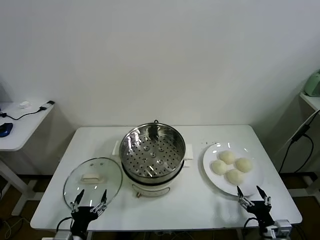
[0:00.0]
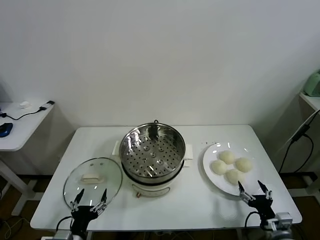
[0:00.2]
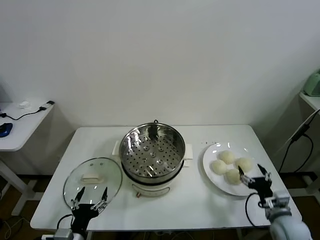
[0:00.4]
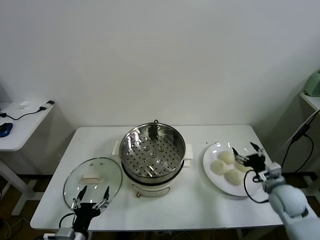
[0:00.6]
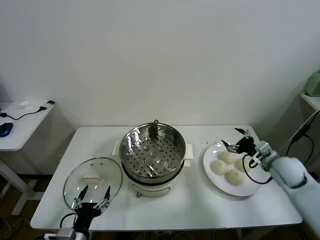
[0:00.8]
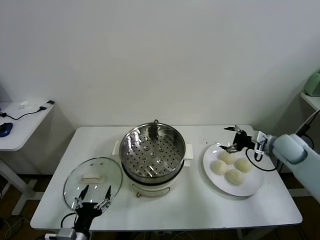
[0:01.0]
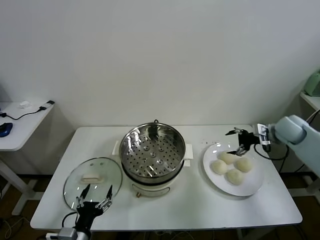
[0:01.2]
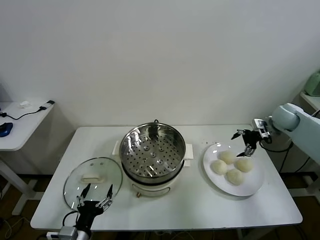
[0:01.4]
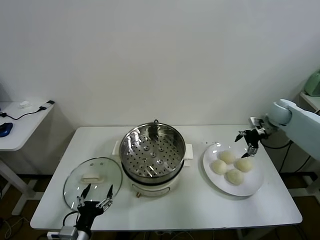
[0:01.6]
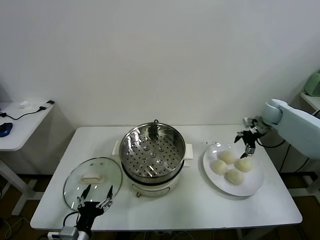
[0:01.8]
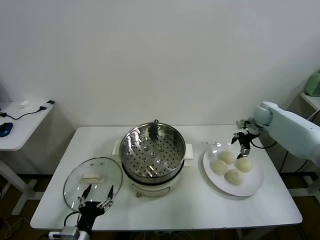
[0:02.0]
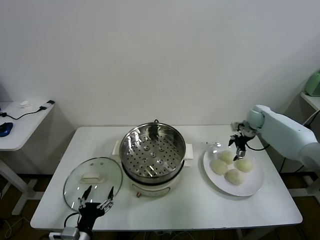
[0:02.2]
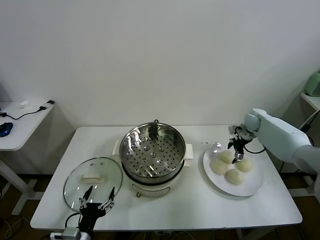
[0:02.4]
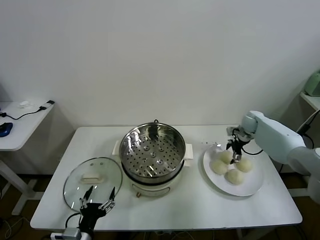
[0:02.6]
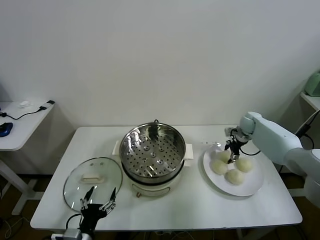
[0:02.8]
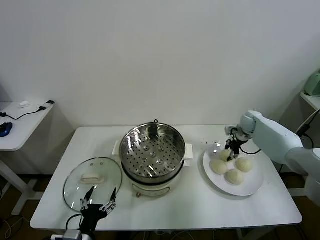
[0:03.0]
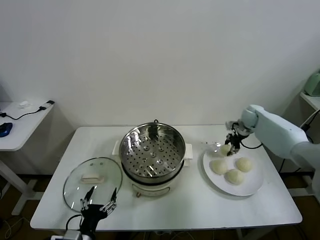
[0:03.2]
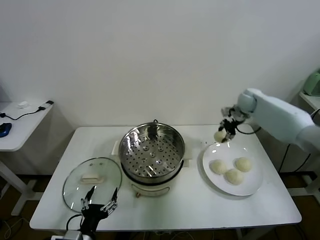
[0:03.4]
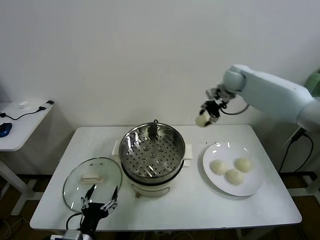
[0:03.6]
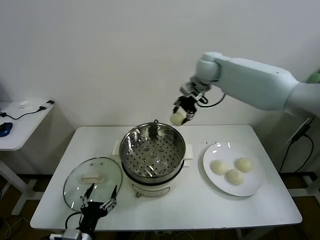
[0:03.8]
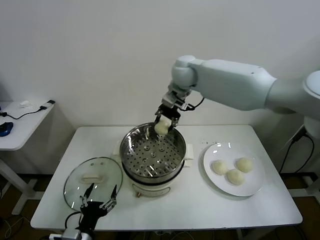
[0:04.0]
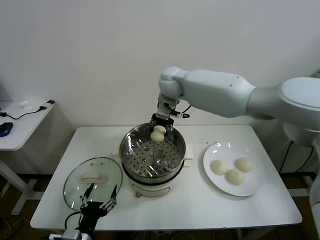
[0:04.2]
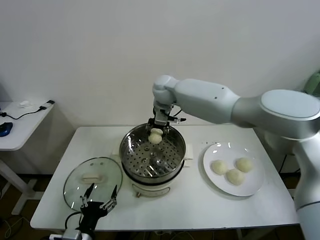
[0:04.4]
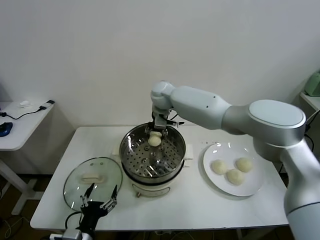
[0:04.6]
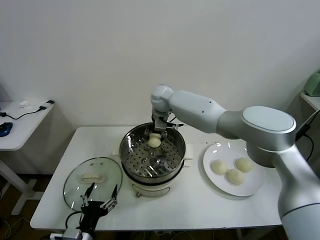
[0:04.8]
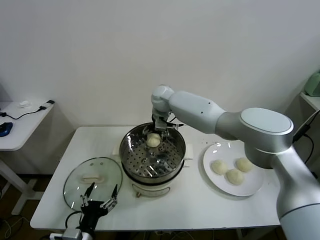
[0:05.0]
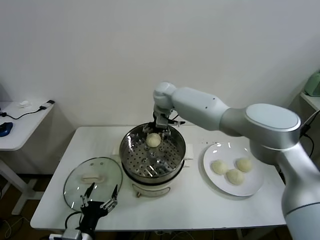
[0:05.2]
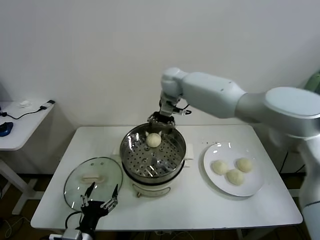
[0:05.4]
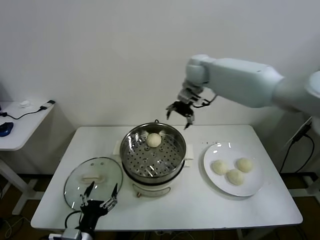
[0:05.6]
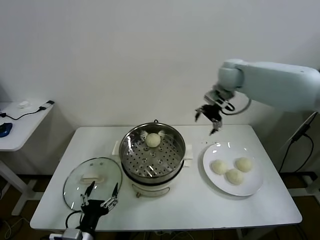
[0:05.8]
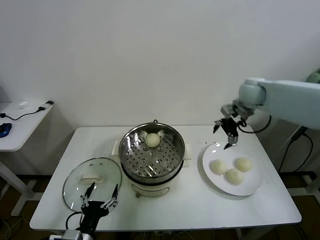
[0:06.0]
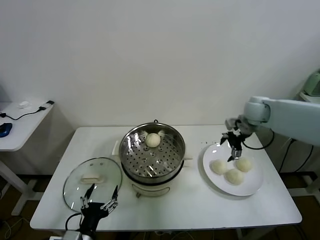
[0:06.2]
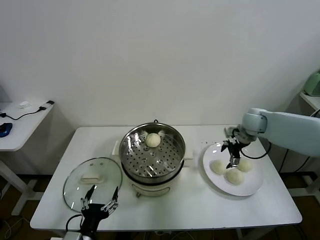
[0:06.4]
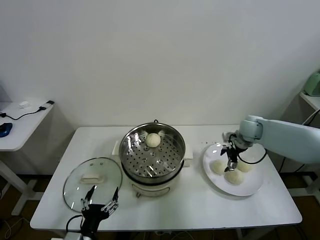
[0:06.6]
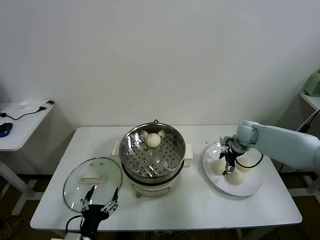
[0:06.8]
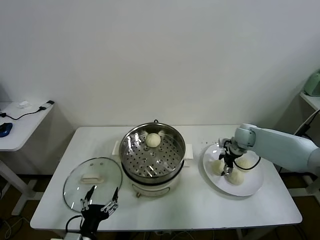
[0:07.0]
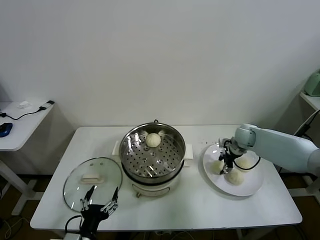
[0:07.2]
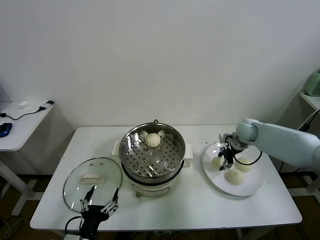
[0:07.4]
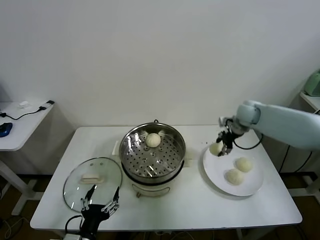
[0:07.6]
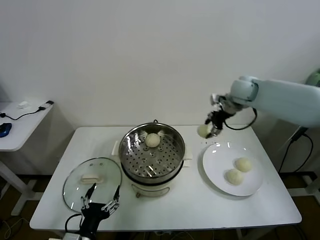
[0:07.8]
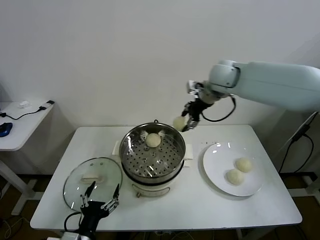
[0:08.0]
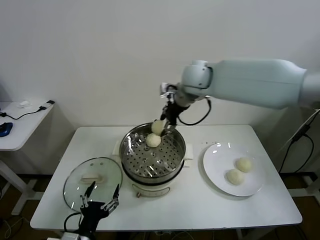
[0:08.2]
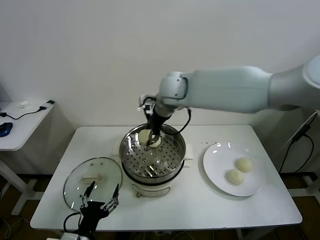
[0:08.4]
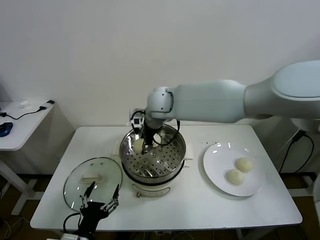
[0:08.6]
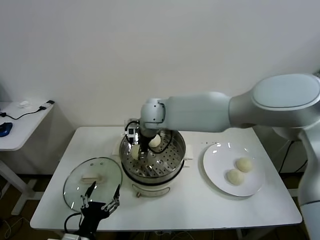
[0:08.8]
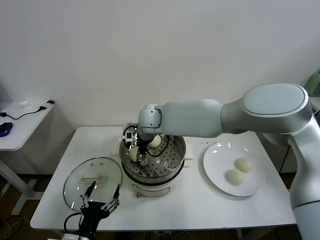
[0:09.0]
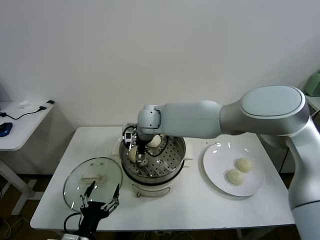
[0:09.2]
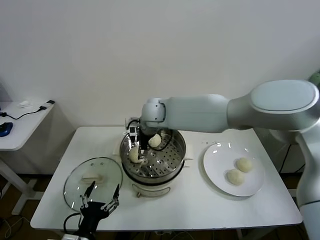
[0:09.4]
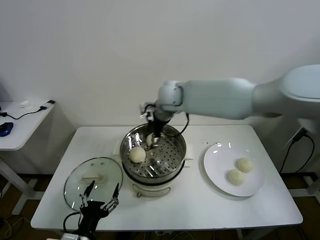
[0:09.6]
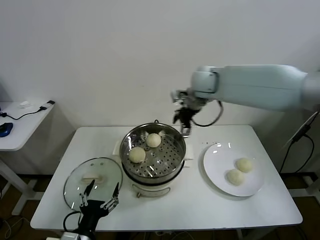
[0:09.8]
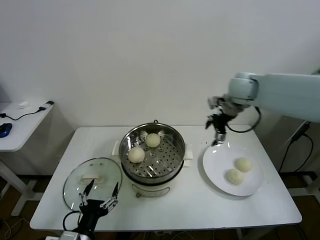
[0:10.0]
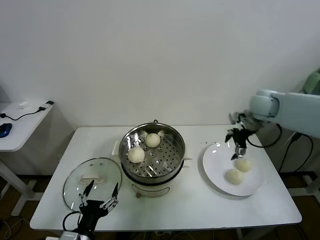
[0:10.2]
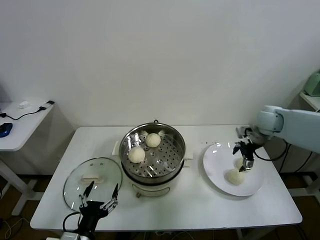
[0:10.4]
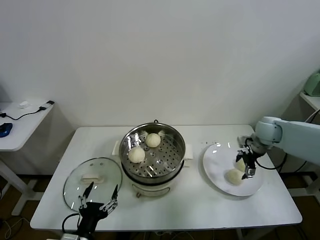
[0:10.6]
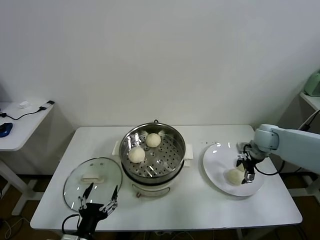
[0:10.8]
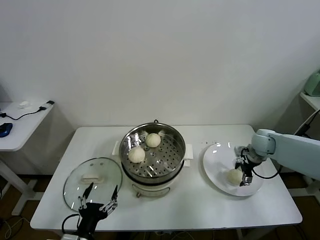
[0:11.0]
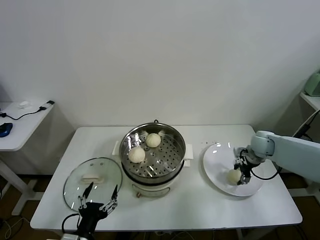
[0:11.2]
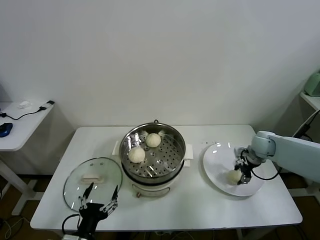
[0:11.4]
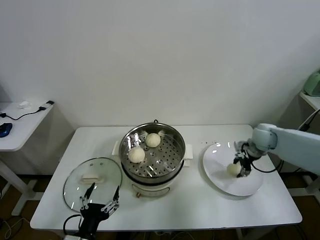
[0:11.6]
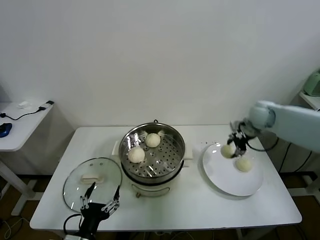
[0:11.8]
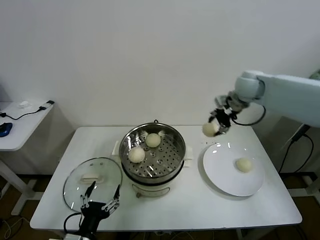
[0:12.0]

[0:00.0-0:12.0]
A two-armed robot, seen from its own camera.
Task of the whole recording: take steamed baozi put them in steamer.
Step, 0:00.0 to 0:03.0: Grasp the baozi in the plate with right gripper.
Step, 0:03.2 to 0:05.0: Place the baozi on the steamer with right gripper.
Step, 0:05.2 to 0:07.0: Grasp the baozi in the plate with right gripper.
Step, 0:07.2 to 0:09.2: Place the baozi on the steamer with right gripper.
Step, 0:09.4 to 0:11.2: Grasp the baozi in the plate with right gripper.
0:01.6 to 0:03.0: The right gripper goes approximately 10 cm downward and to the left, and closes up.
0:03.0 to 0:04.4: The right gripper travels to the left and upward by about 40 cm.
0:04.4 to 0:06.0: The right gripper is displaced to the right by roughly 30 cm, and opens.
0:06.0 to 0:07.6: The right gripper goes downward and returns, some 15 cm each way, and closes its fingers.
0:07.6 to 0:09.0: The right gripper heads to the left, covering about 35 cm, and opens up.
0:09.0 to 0:10.4: The right gripper heads to the right, covering some 40 cm.
0:10.4 to 0:12.0: The right gripper heads upward and to the left, covering about 20 cm, and closes up.

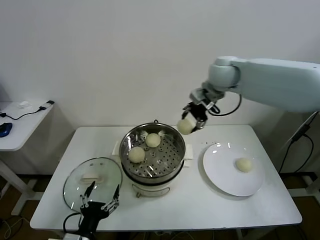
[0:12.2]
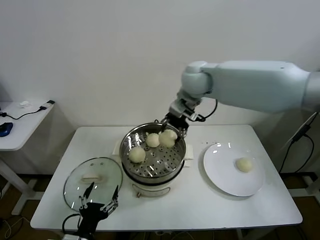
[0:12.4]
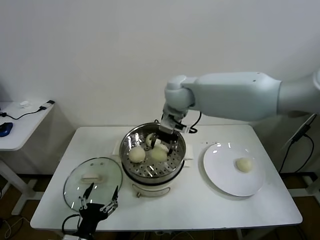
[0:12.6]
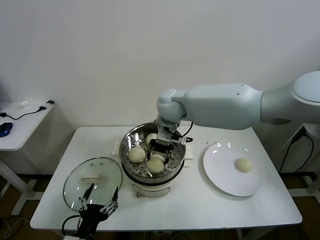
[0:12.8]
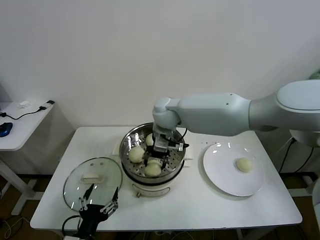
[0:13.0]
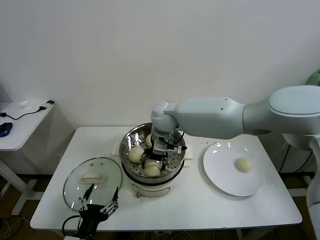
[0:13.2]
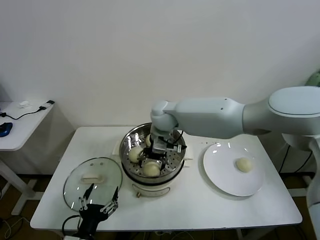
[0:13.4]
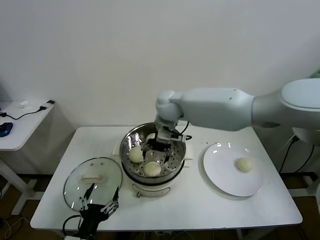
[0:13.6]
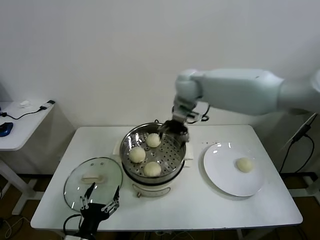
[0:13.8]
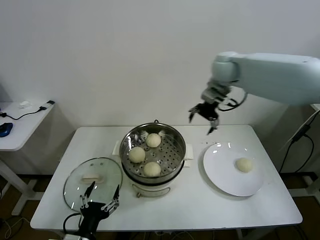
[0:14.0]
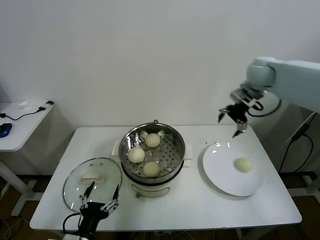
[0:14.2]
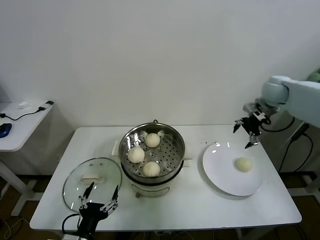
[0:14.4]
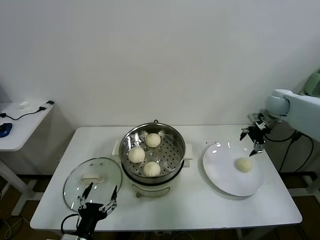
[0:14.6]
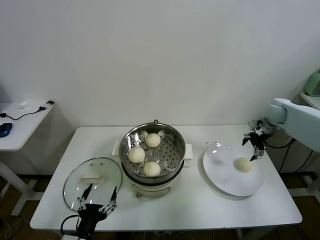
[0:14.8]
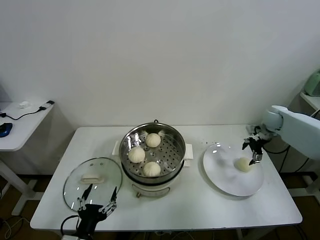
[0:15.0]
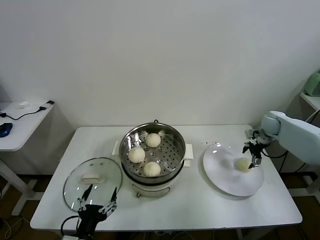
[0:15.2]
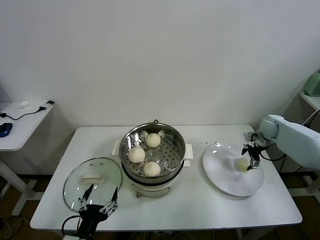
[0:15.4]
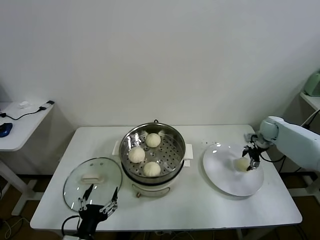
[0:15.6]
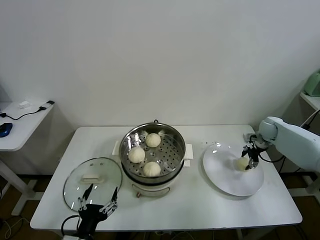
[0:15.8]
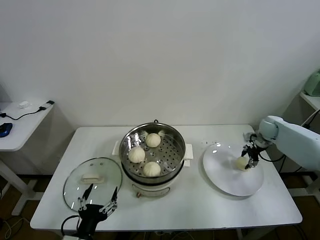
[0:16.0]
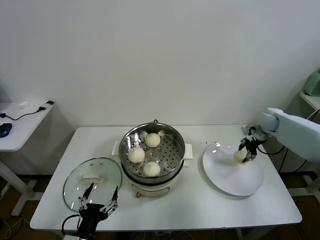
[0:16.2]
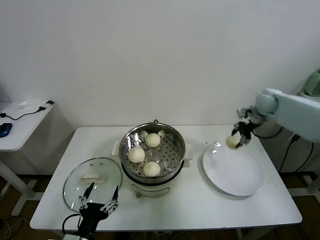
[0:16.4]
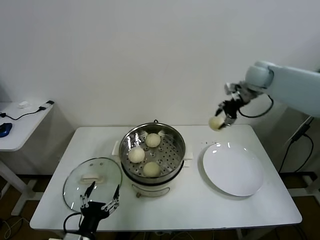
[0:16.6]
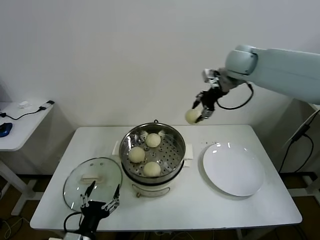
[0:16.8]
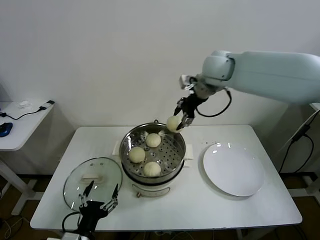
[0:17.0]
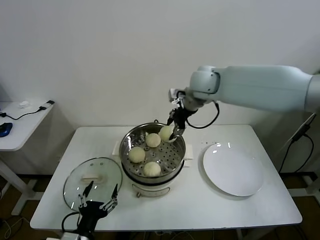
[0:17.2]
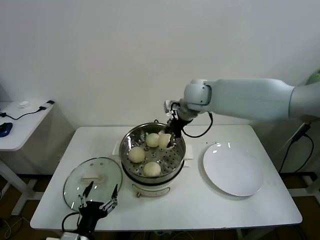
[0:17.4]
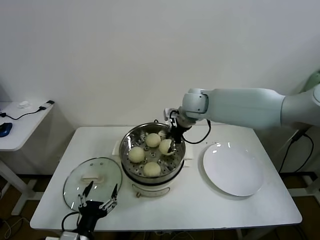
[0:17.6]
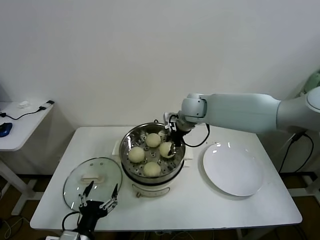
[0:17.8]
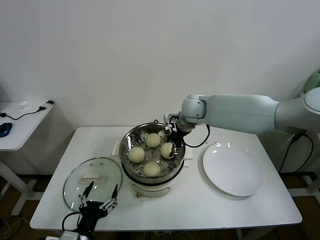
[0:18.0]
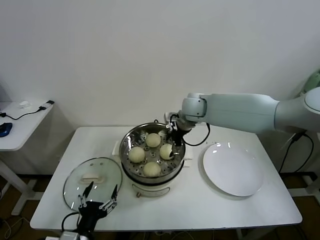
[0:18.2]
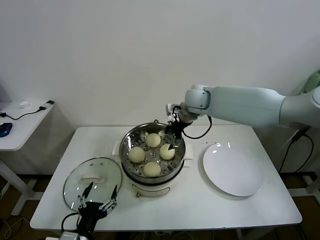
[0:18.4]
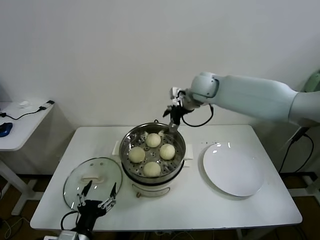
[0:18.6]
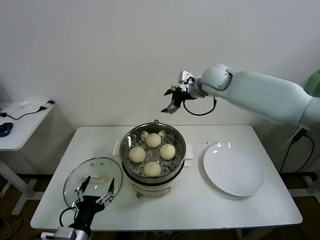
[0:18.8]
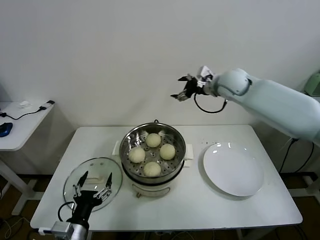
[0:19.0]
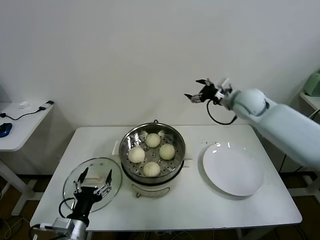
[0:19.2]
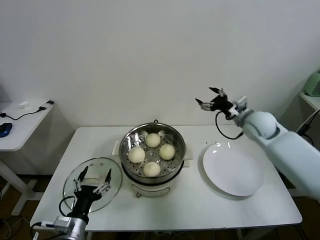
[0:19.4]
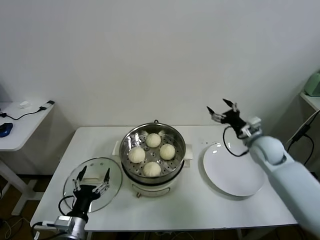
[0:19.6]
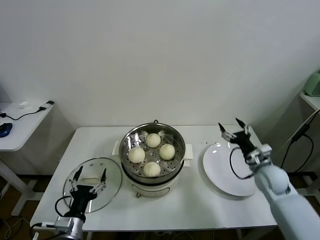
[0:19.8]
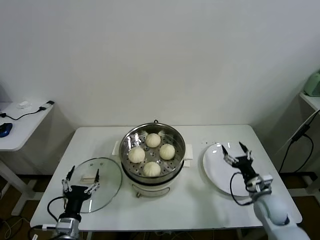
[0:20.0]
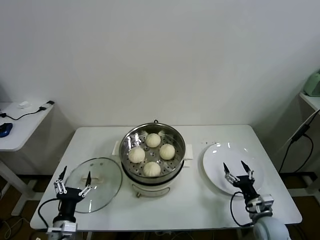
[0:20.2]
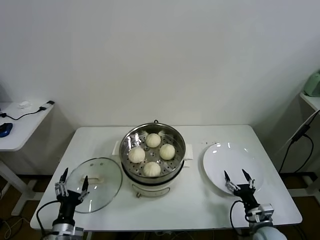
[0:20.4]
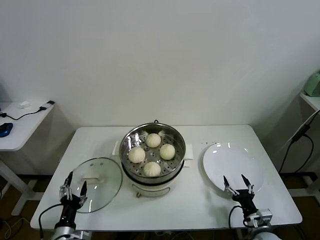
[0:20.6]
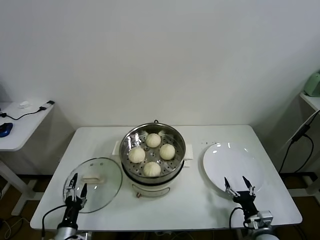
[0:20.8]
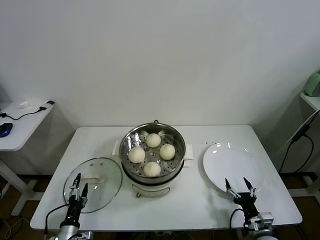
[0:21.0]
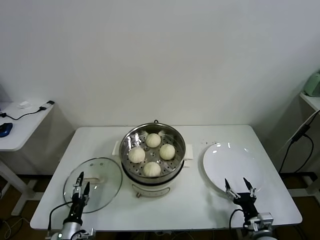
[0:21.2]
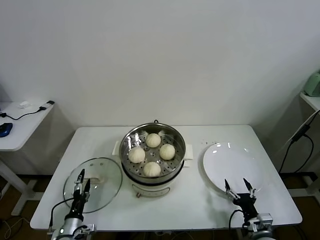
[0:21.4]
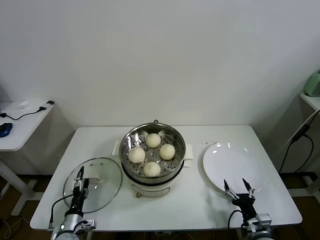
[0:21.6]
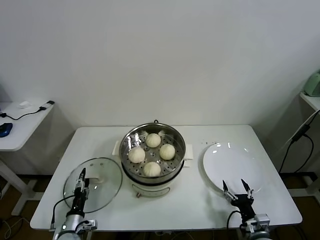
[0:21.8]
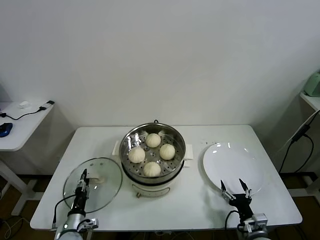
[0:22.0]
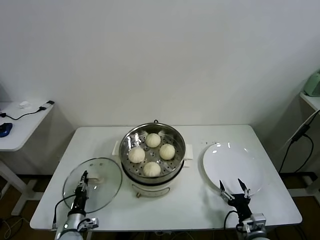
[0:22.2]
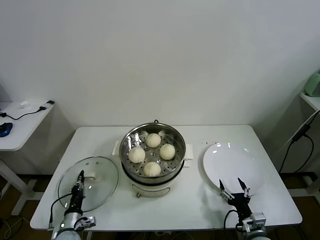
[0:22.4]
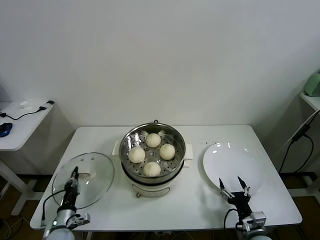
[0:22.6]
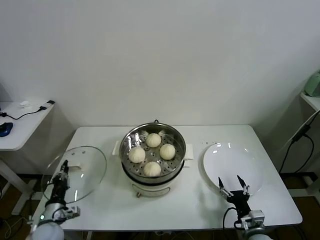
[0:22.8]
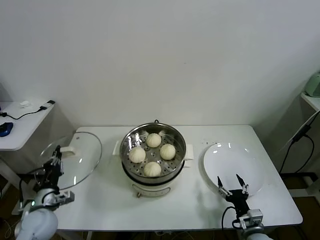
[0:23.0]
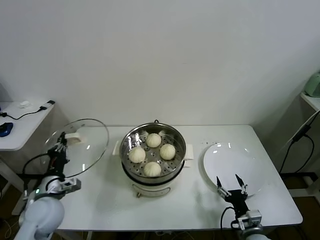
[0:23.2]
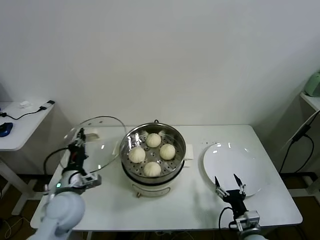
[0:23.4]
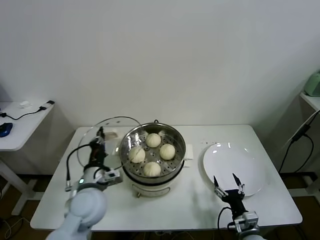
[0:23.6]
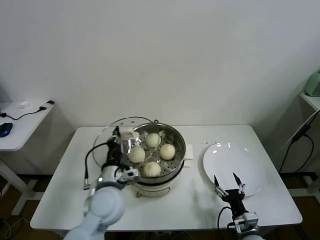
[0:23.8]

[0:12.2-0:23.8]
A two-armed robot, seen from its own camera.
Task of the whole recording: take steamed baozi put them in steamer.
Step, 0:12.2 to 0:13.2: Place the baozi on the steamer with right gripper.
Step, 0:13.4 to 0:15.8: Grasp the baozi in the plate with right gripper.
Step, 0:16.0 to 0:18.0: Place the baozi on the steamer with right gripper.
Step, 0:18.2 to 0:22.4: Grasp the pot lid with left gripper.
0:12.2 to 0:13.6: The right gripper travels to the left and downward by roughly 15 cm, and opens.
0:13.6 to 0:15.0: The right gripper heads to the right, covering about 40 cm.
0:15.0 to 0:16.6: The right gripper heads upward and to the left, covering some 25 cm, and closes.
0:16.6 to 0:18.0: The right gripper goes roughly 25 cm to the left and downward.
0:18.0 to 0:19.4: The right gripper goes about 20 cm to the right, and opens. Meanwhile the left gripper moves roughly 5 cm.
0:19.4 to 0:21.0: The left gripper moves downward and to the left, roughly 15 cm. Meanwhile the right gripper goes some 40 cm backward and downward.
0:21.0 to 0:22.4: The left gripper moves forward, about 5 cm, and closes its fingers.
0:22.4 to 0:23.8: The left gripper travels upward and to the right by about 30 cm.
